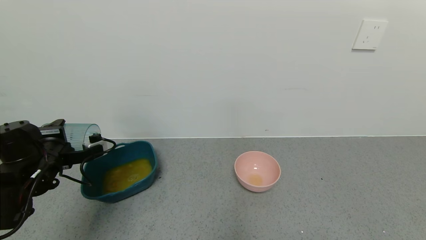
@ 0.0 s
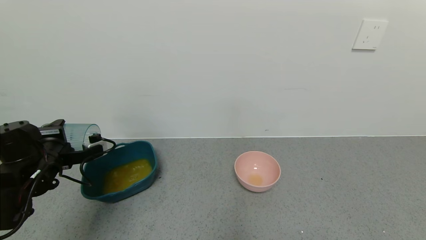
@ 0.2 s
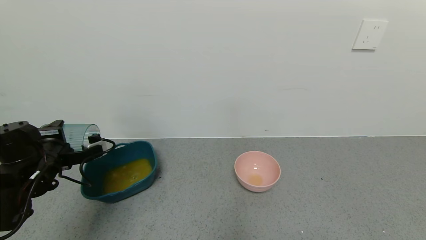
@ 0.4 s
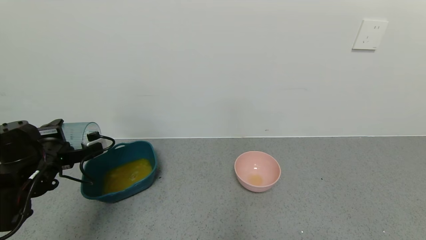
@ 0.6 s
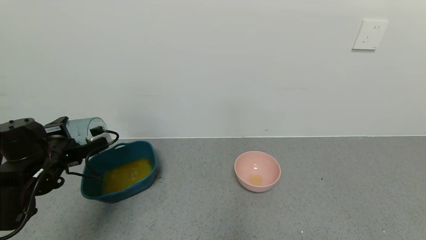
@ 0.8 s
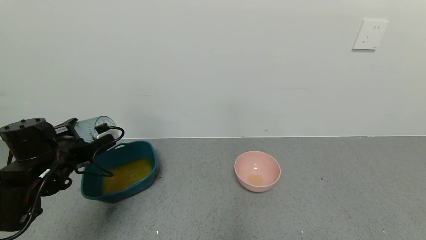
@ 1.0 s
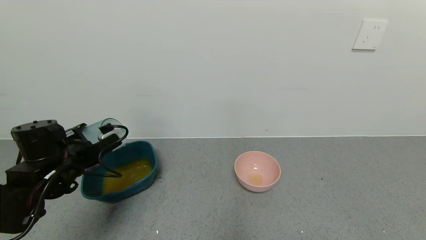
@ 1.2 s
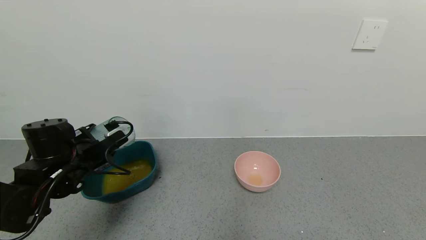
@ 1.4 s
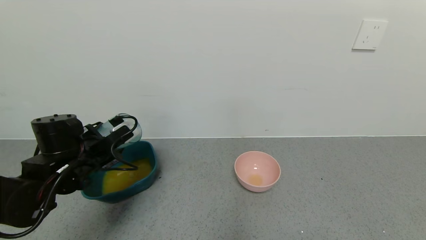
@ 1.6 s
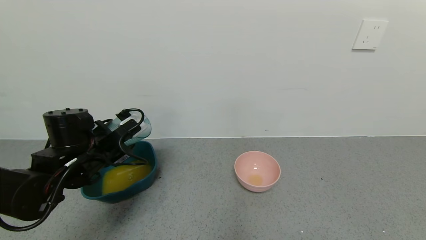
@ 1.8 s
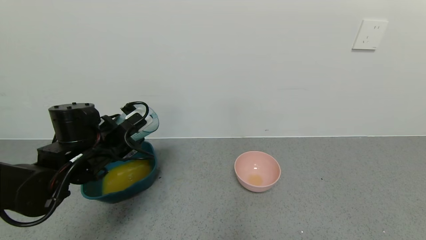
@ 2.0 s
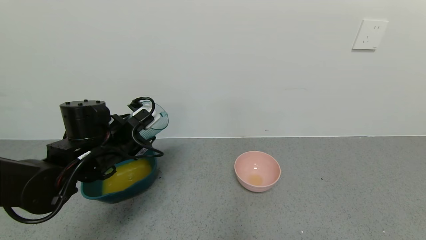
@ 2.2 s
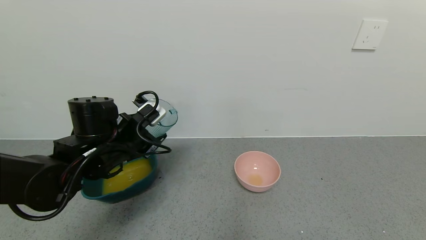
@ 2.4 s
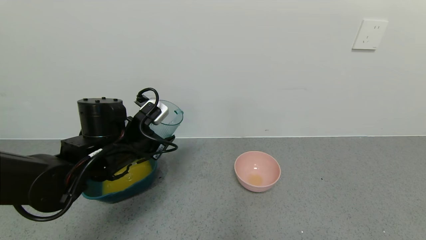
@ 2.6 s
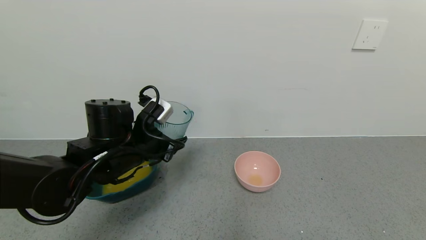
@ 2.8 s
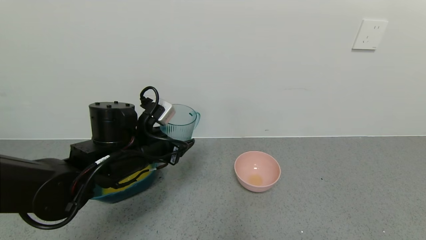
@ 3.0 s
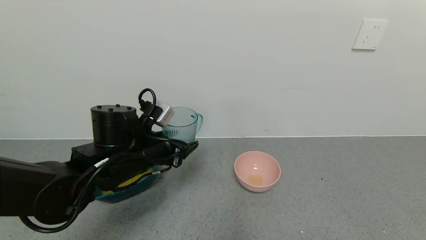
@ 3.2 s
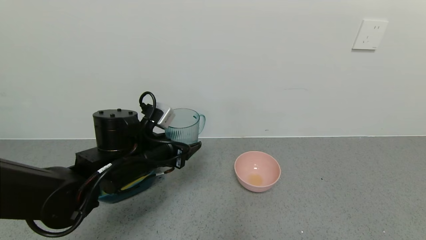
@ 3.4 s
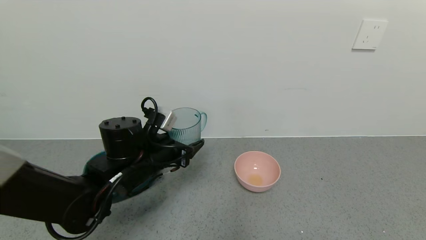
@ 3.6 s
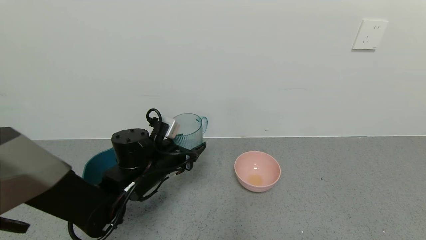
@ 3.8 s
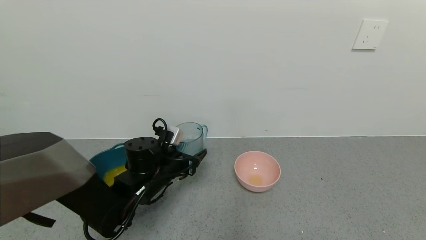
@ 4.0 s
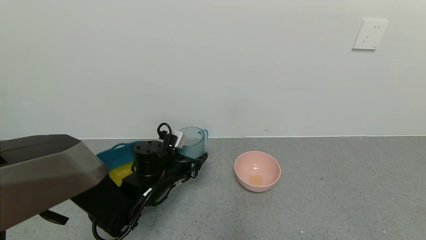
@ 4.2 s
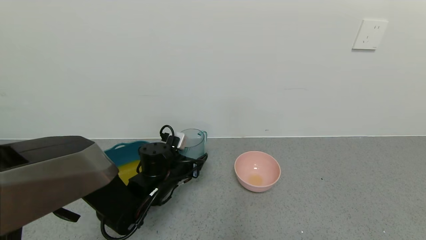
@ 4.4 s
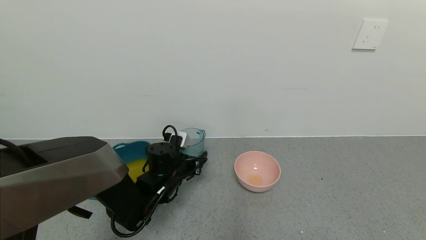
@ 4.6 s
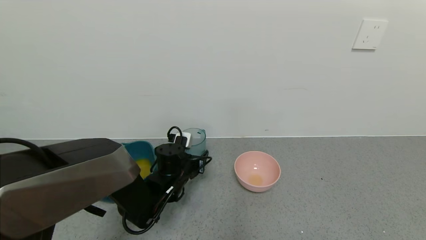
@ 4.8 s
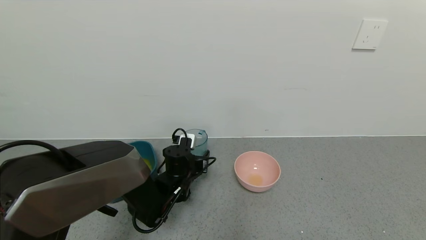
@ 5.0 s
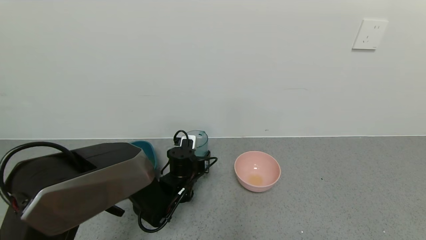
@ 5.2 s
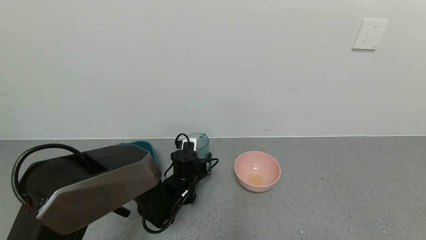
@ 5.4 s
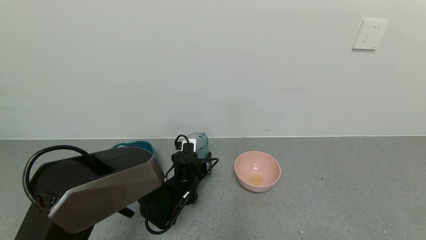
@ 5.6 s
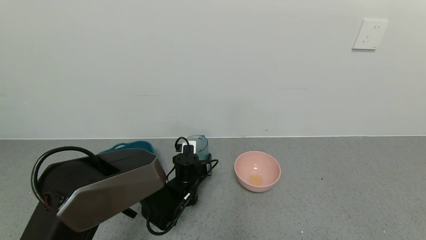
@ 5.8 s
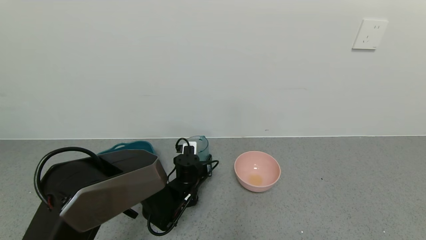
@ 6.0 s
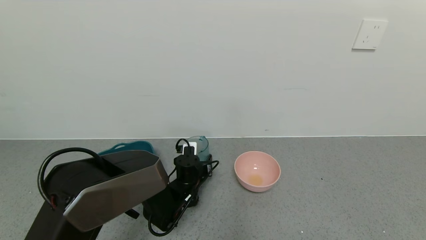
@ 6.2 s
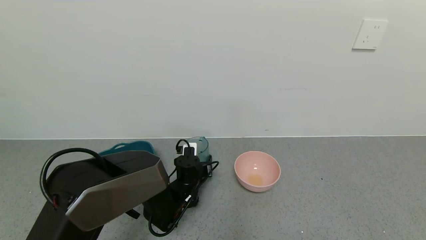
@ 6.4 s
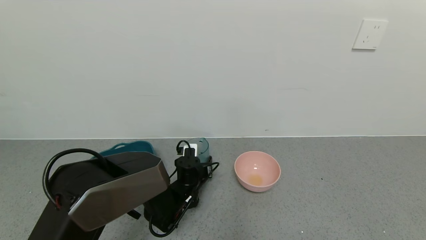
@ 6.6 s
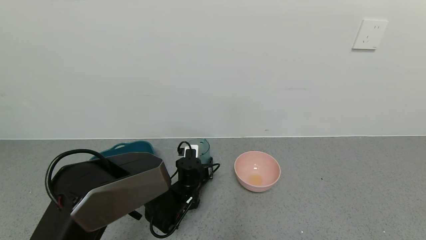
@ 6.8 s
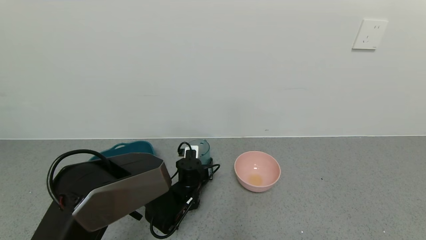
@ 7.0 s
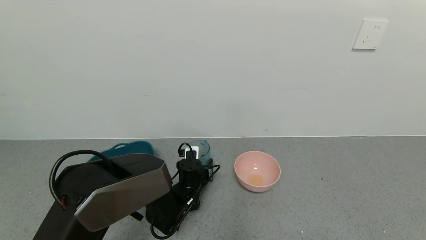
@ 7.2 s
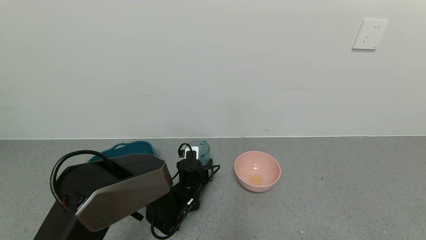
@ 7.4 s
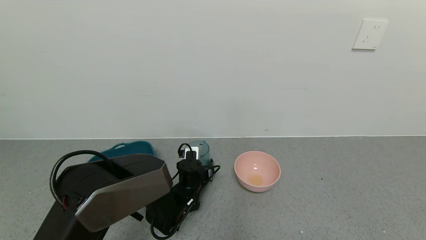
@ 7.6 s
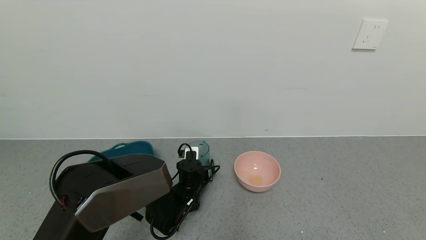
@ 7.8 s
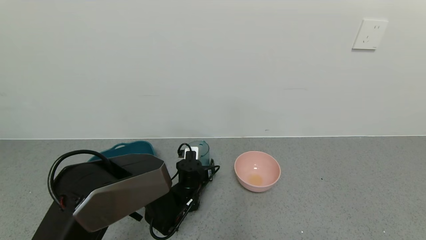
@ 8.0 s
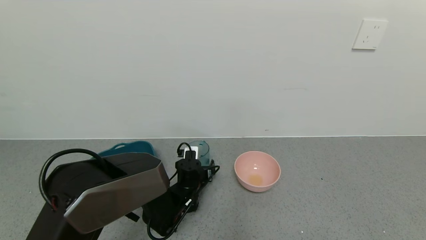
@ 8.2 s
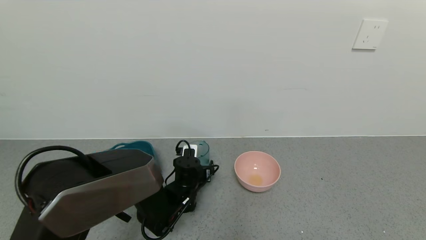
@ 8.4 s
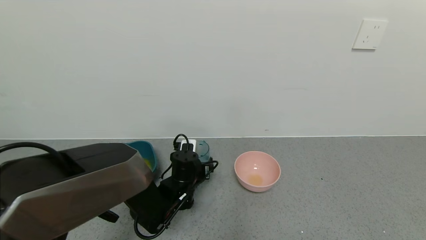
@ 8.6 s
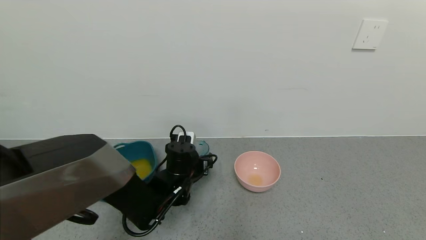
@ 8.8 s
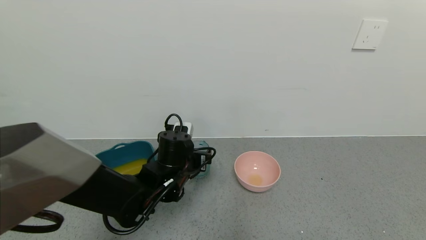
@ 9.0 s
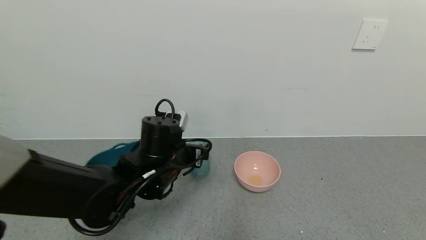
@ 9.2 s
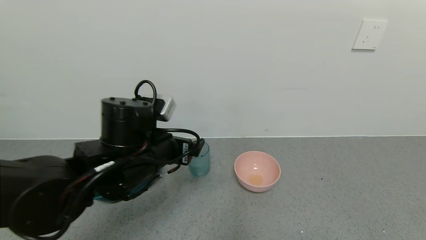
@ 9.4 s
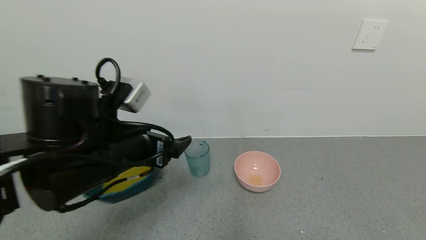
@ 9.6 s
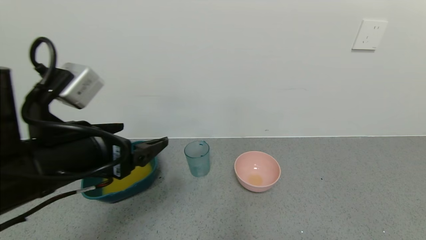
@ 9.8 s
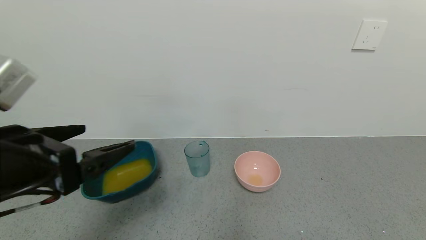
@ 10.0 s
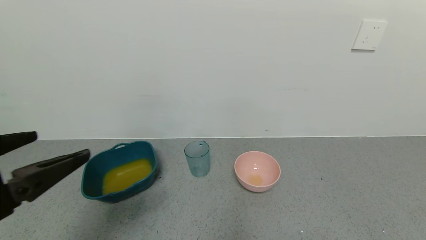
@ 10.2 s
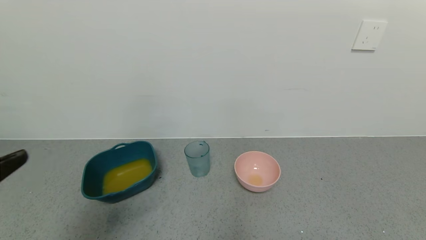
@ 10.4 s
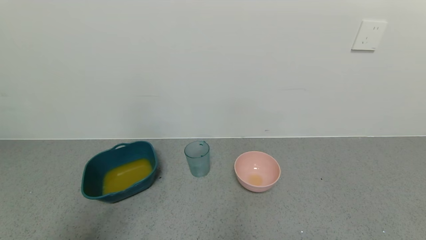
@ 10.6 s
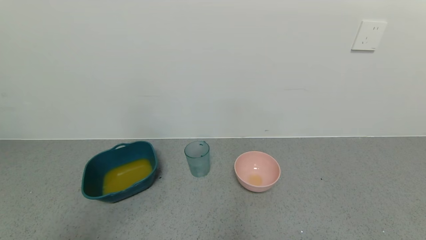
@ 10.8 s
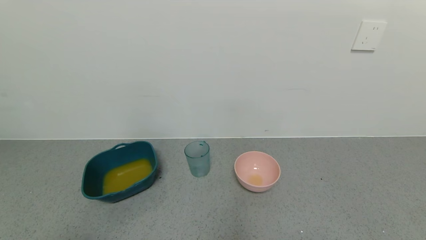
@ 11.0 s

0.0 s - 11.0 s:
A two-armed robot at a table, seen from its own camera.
Task of the whole recording: use a gripper to pick up the cup and pour the liquid into a bowl or tray.
Step, 1.2 s - 9.2 s: Place the glass cup with the left gripper.
0.0 s - 1.6 s: The left gripper goes approximately 10 cm to the right.
1.6 s - 3.2 s: The left gripper shifts some 10 cm to the right.
3.2 s - 4.8 s: The left gripper moves downward and forward, some 15 cm.
4.8 s - 6.2 s: The left gripper changes place by approximately 5 cm.
6.2 s - 7.8 s: The left gripper opens its fingers.
7.8 s - 9.4 s: The left gripper shifts about 25 cm upward and backward, and opens up.
9.4 s - 11.0 s: The left gripper travels backward and to the left by roughly 35 cm.
